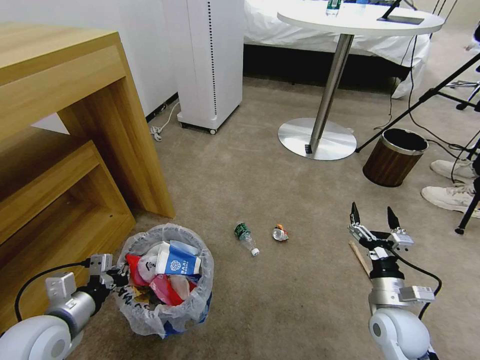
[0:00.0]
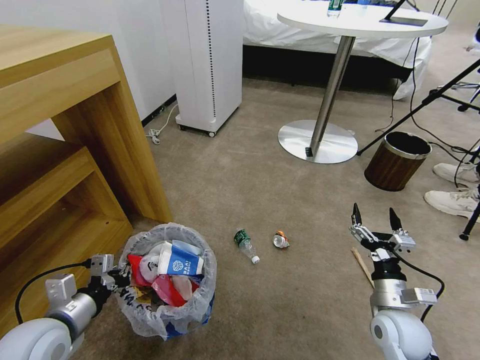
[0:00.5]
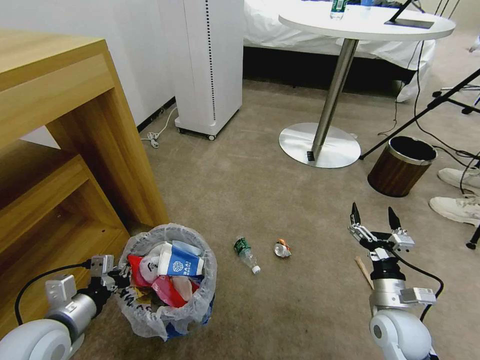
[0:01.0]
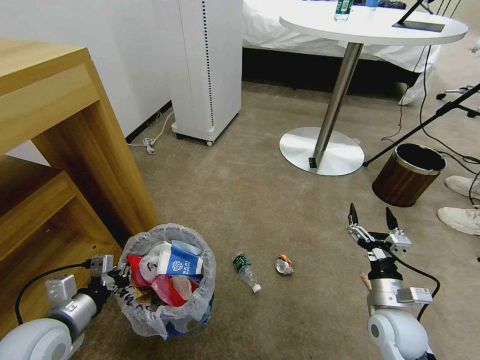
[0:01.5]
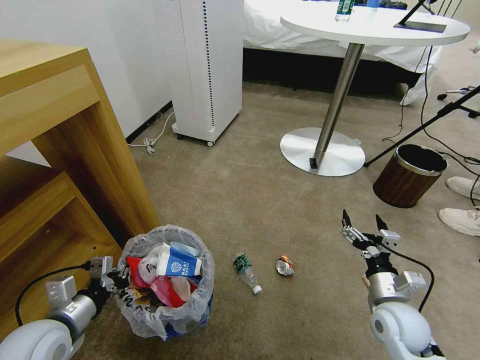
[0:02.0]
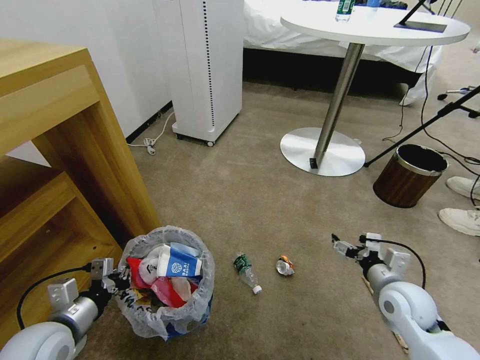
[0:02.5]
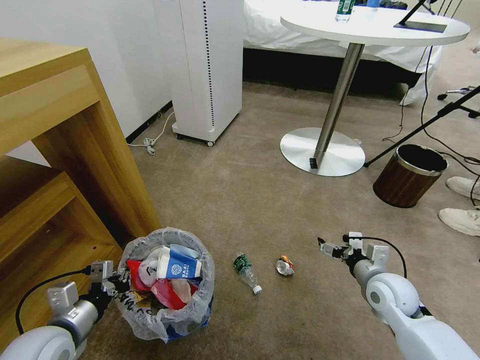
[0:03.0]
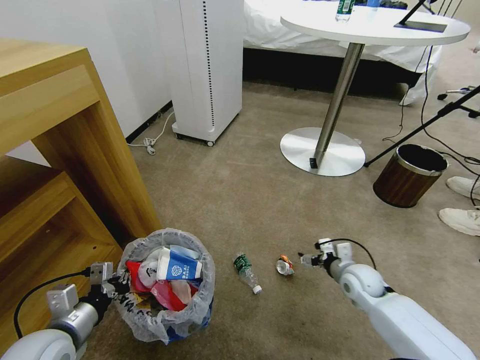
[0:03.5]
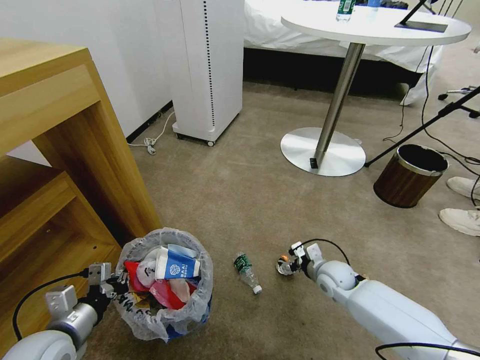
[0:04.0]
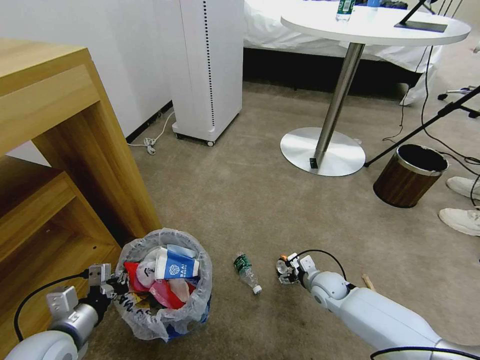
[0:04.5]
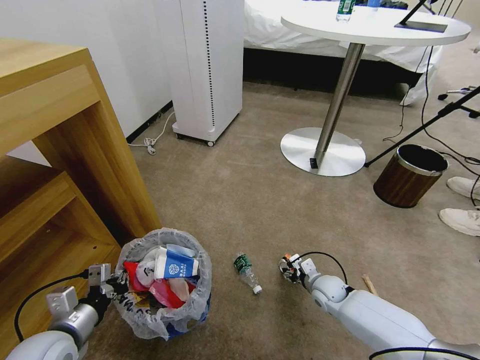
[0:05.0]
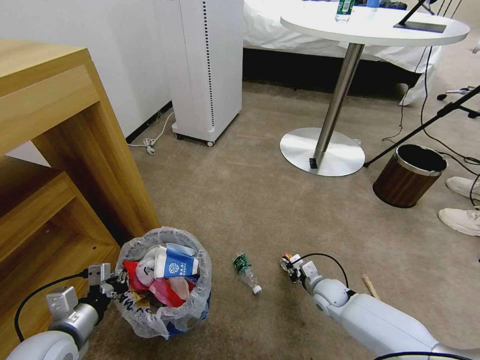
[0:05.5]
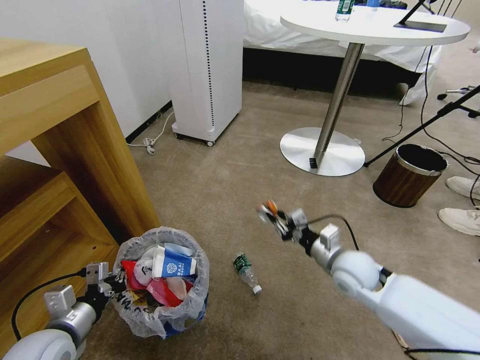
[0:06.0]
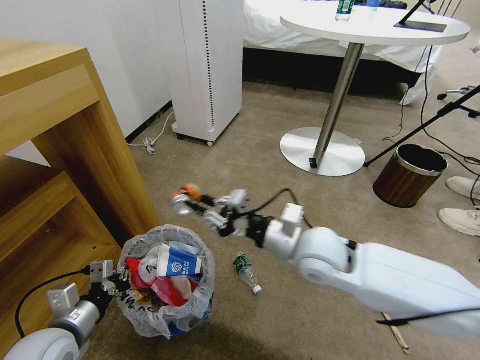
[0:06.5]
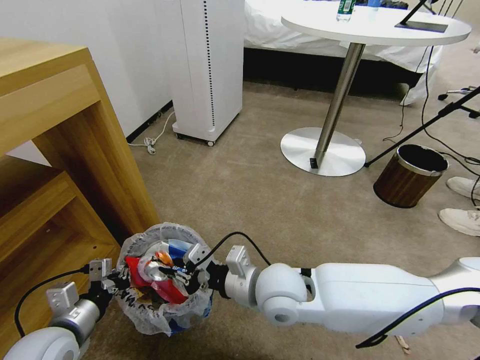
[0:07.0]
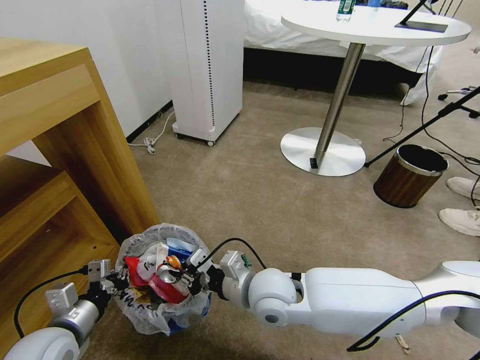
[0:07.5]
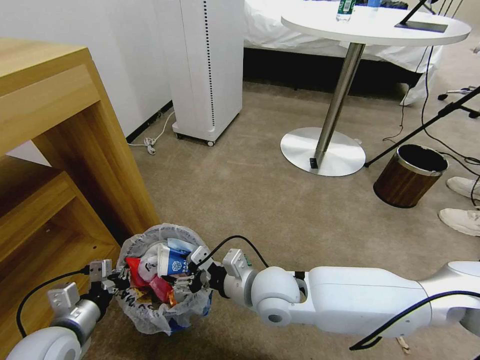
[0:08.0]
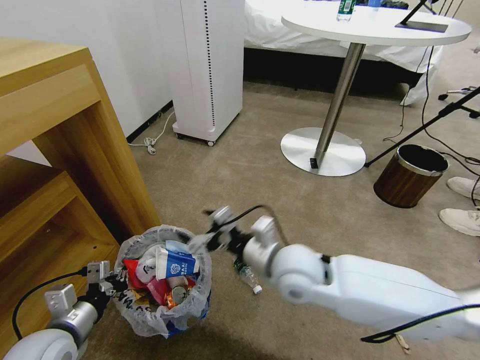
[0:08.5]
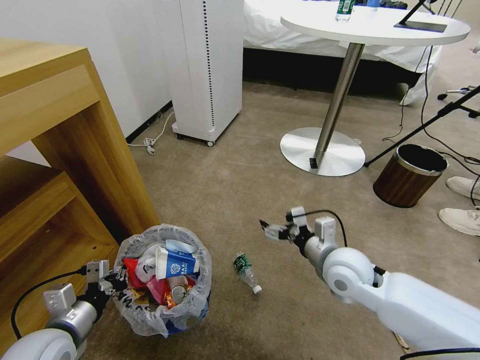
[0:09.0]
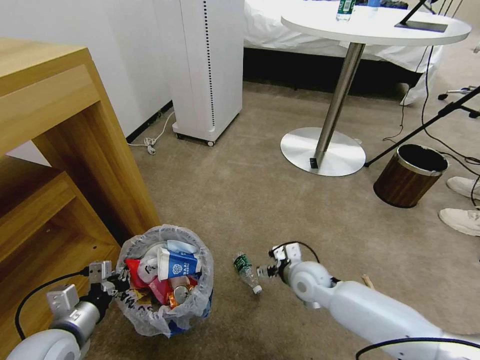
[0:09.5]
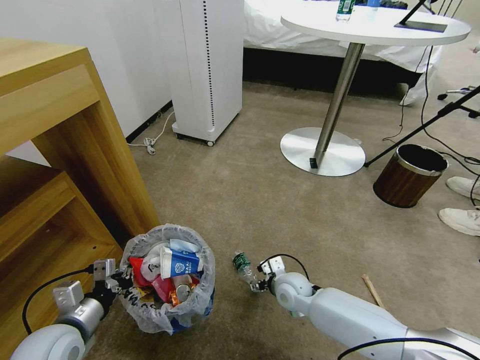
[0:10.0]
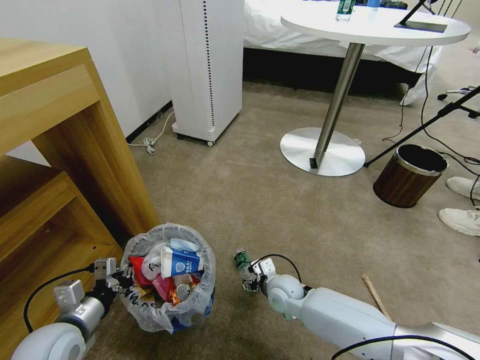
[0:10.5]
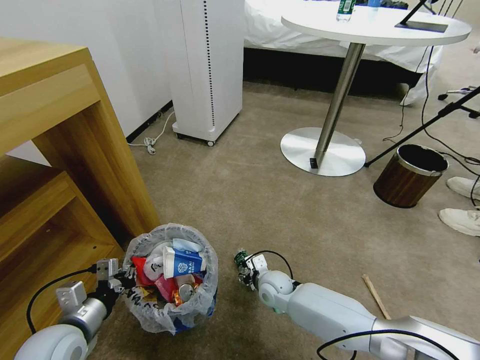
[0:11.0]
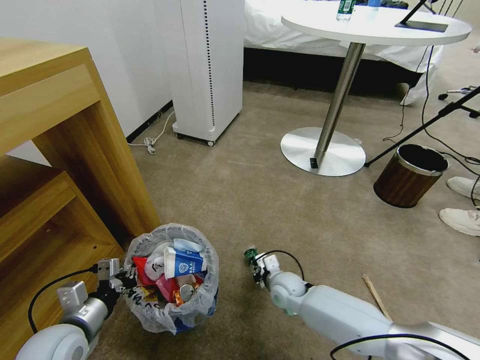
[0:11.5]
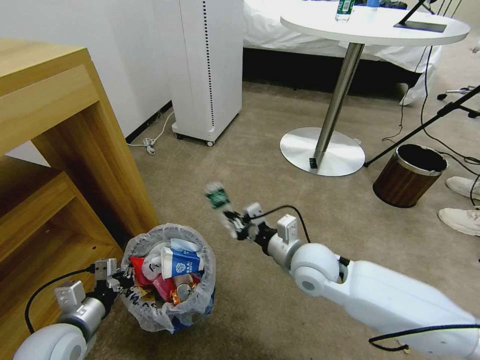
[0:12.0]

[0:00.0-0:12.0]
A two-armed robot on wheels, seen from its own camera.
Task of the whole recording: Pick up the trash bin and place the garbage on the floor into it.
0:02.0 to 0:04.0: The right gripper travels forward, downward and to the left by approximately 15 cm.
0:04.0 to 0:06.0: The right gripper heads upward, covering approximately 10 cm, and closes up.
0:06.0 to 0:08.0: The right gripper shifts some 20 cm to the left, and opens up.
0:08.0 to 0:10.0: The right gripper shifts roughly 20 cm downward, to the right and forward.
0:10.0 to 0:12.0: The right gripper shifts roughly 15 cm upward, and closes its fingers.

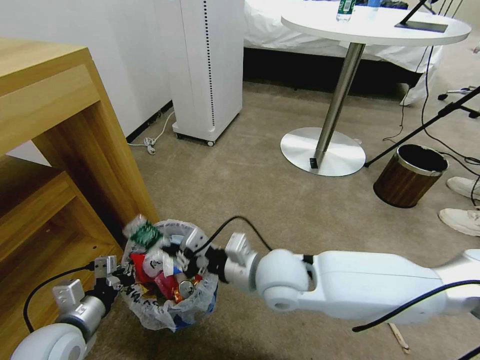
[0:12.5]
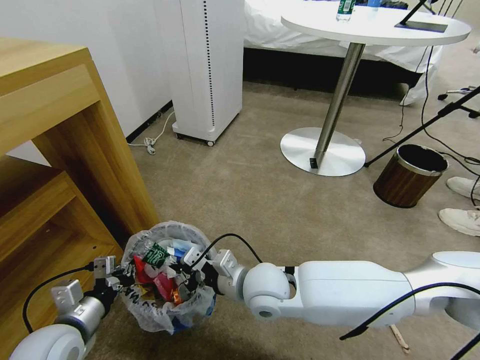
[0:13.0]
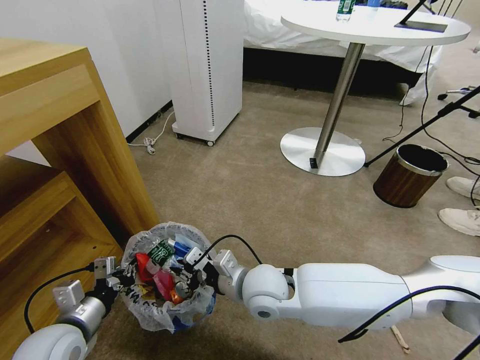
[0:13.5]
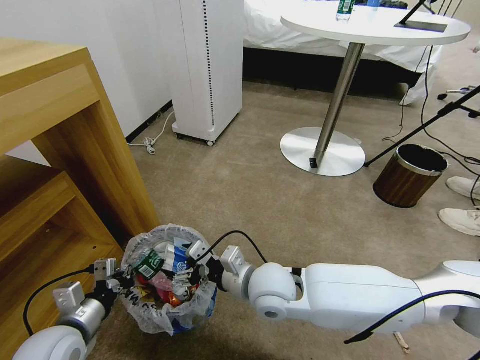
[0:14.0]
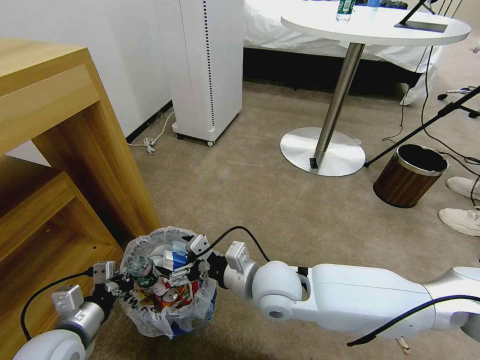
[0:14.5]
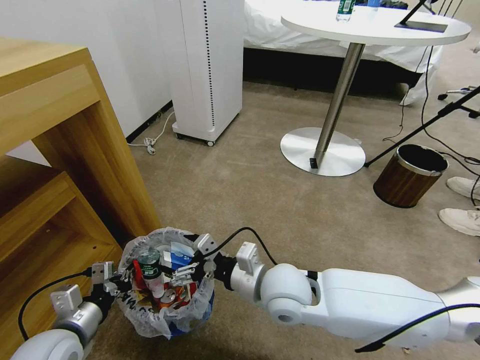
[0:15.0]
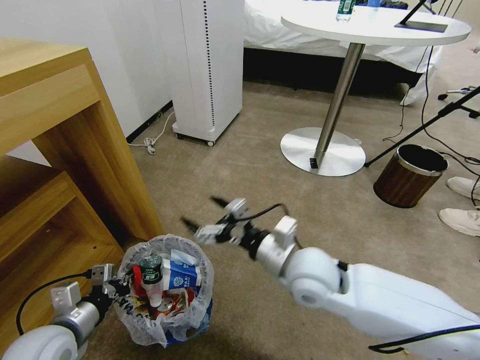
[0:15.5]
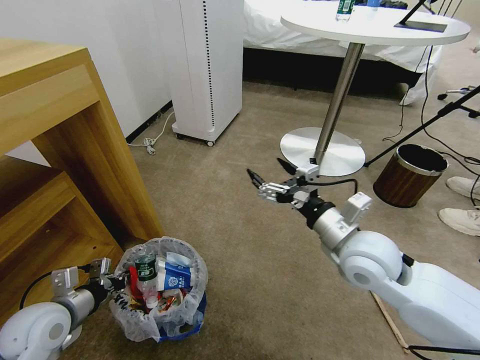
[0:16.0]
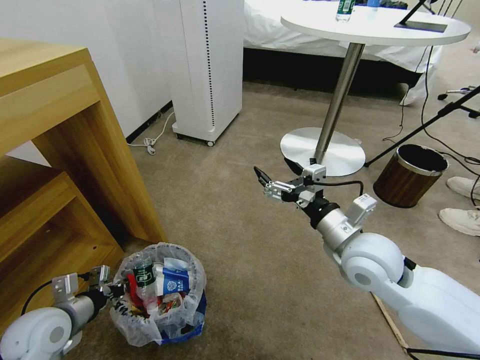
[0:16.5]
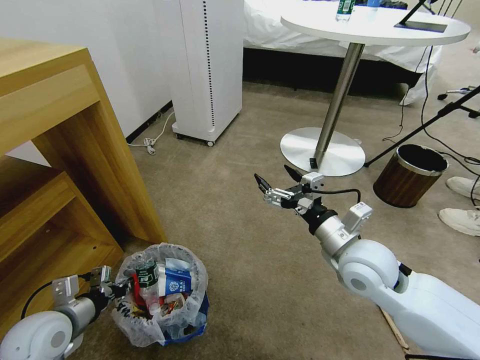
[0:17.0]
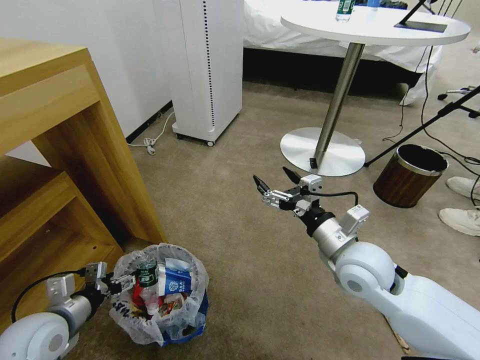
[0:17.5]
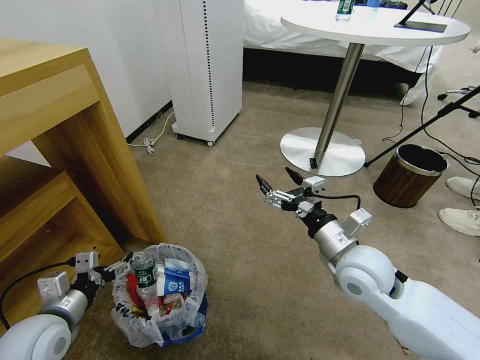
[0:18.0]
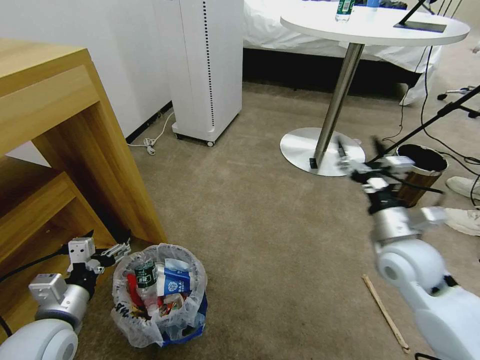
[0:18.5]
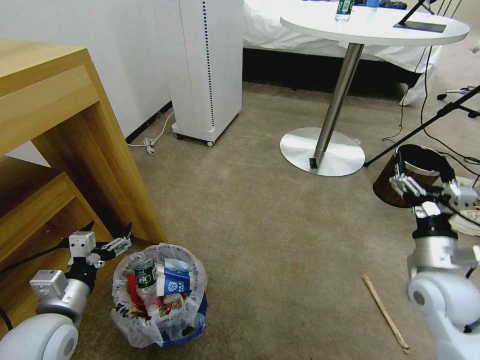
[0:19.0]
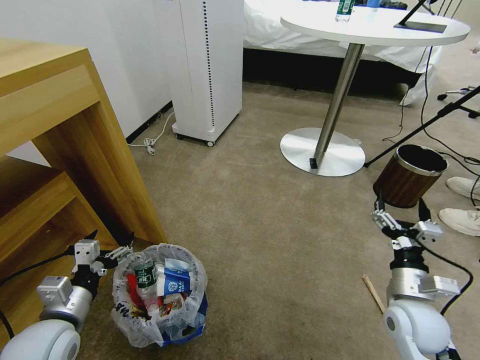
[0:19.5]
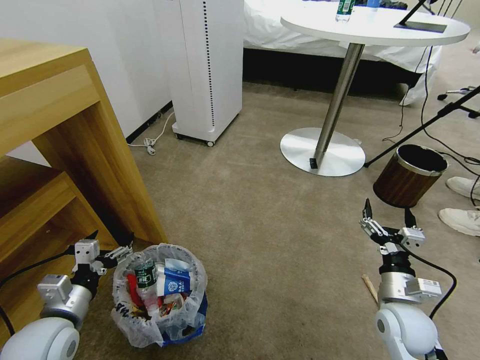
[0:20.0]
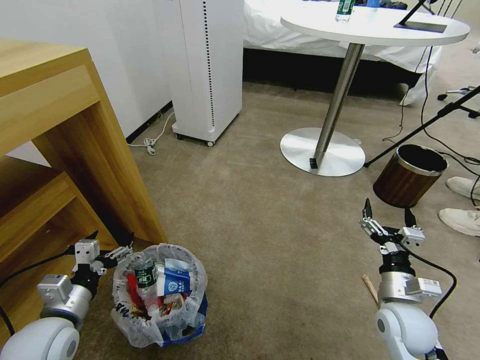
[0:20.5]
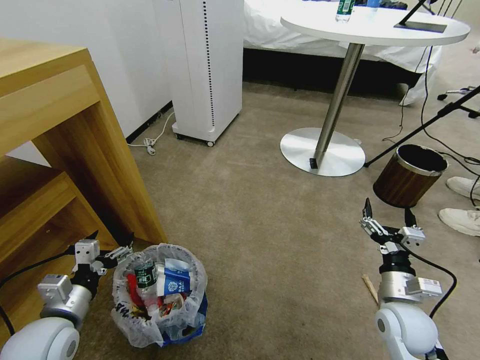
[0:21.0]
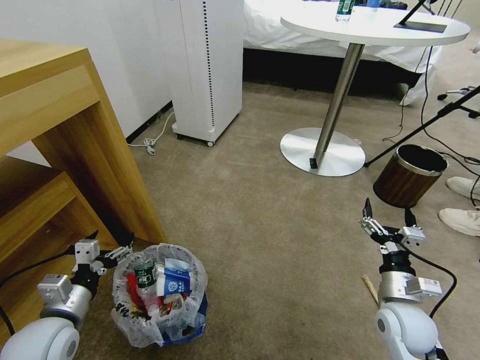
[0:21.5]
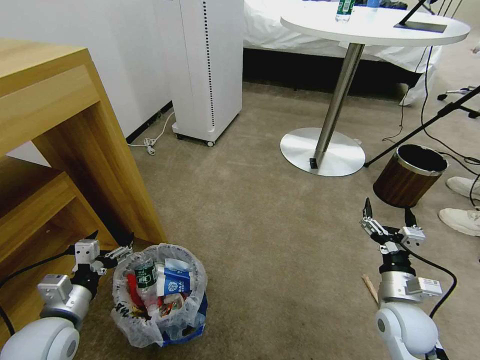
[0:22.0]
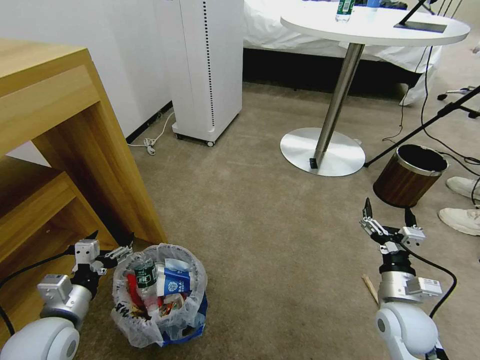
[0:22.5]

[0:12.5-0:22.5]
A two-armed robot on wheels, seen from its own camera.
Task of the whole recording: Pick up the trash bin and place the garbage on the floor into it.
0:12.5 to 0:14.5: The right gripper opens its fingers.
0:14.5 to 0:16.5: The left gripper moves approximately 5 cm; the right gripper is displaced to the right by approximately 15 cm.
0:16.5 to 0:18.5: The right gripper heads to the right, covering about 10 cm. The left gripper moves approximately 5 cm, and opens up.
0:18.5 to 0:20.5: The right gripper travels downward and backward by approximately 15 cm.
0:20.5 to 0:22.5: Both grippers stay about where they are.

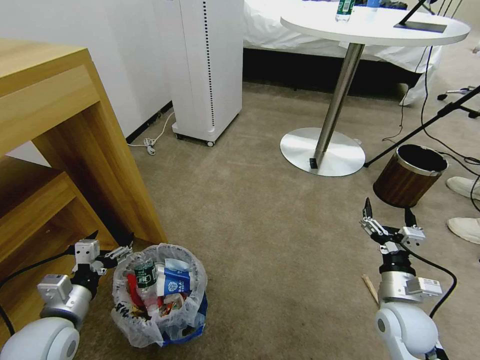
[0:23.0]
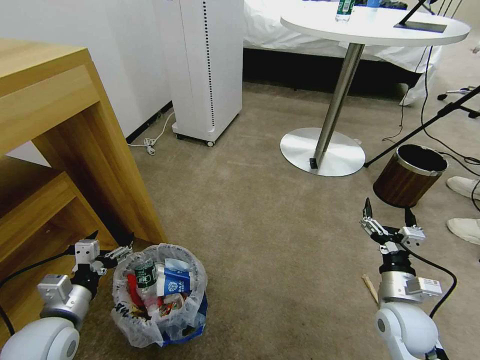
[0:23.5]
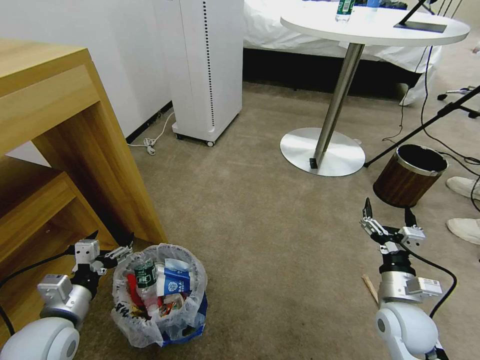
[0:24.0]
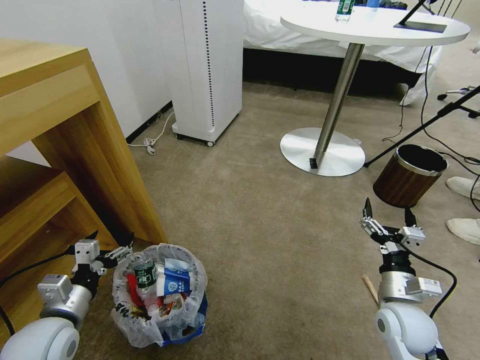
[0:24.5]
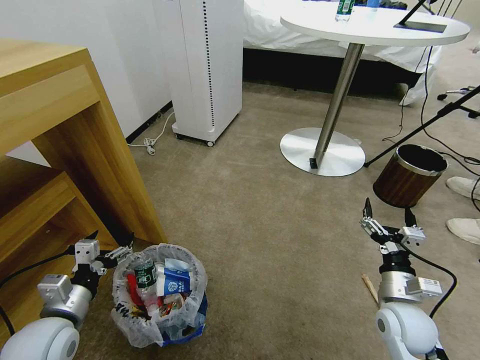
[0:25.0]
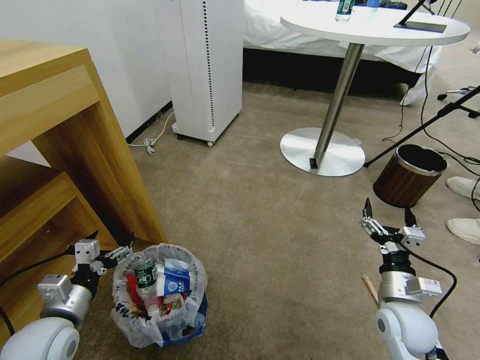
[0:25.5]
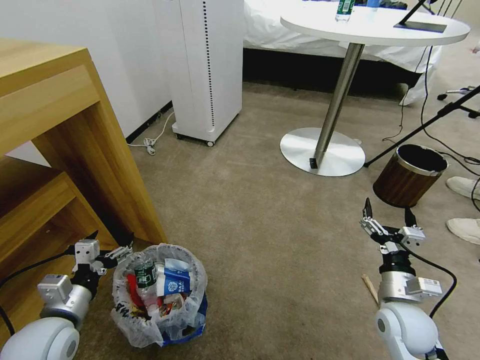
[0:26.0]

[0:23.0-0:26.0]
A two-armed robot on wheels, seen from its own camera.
Task of the whole recording: Pick up the trash bin and place the garbage on the floor into it.
0:23.0 to 0:26.0: Neither gripper changes place.
